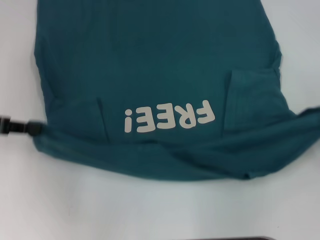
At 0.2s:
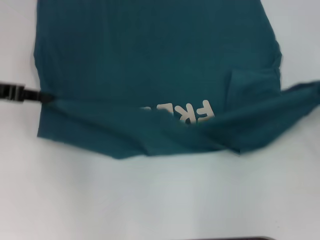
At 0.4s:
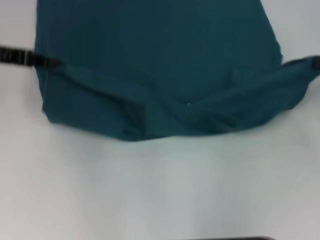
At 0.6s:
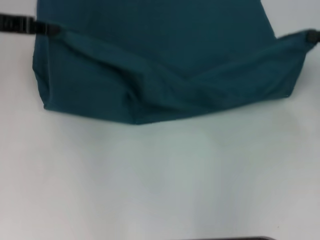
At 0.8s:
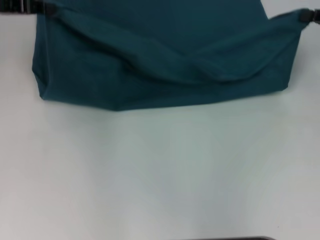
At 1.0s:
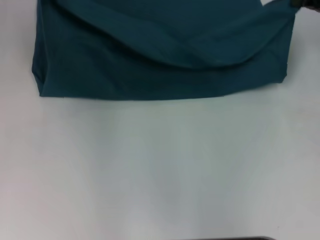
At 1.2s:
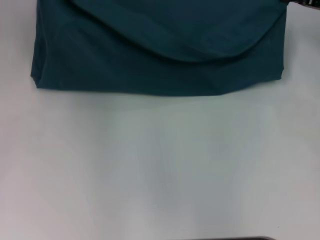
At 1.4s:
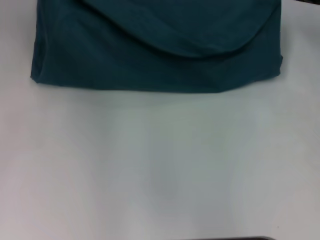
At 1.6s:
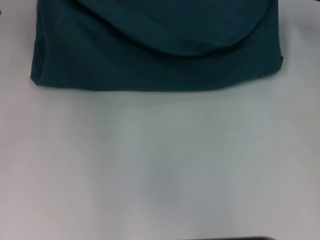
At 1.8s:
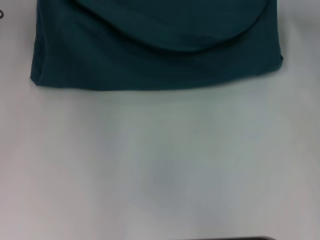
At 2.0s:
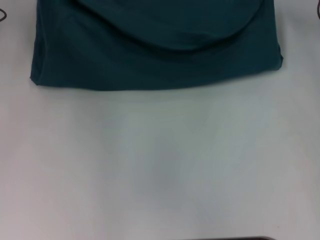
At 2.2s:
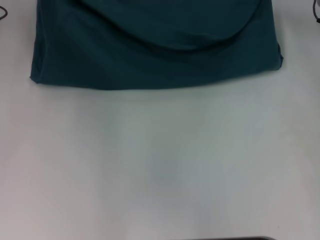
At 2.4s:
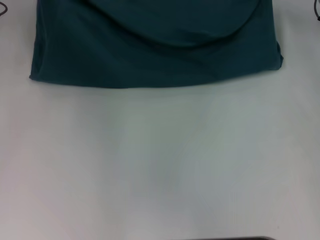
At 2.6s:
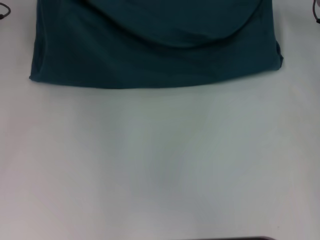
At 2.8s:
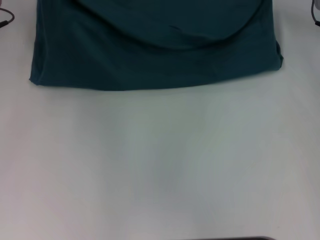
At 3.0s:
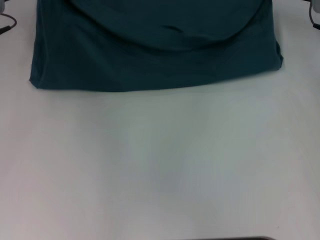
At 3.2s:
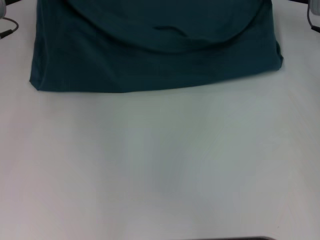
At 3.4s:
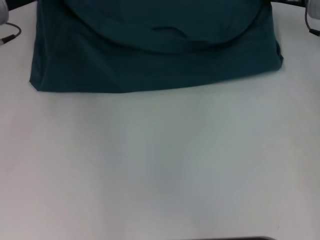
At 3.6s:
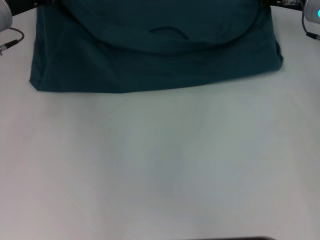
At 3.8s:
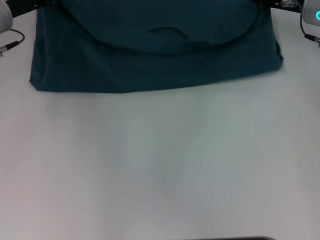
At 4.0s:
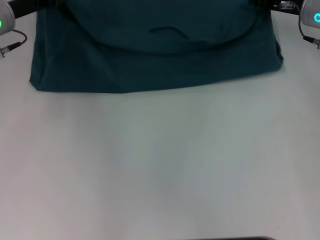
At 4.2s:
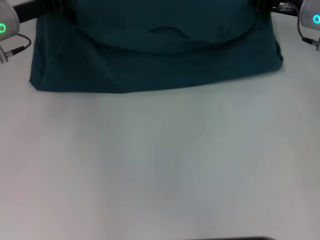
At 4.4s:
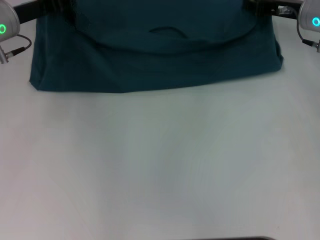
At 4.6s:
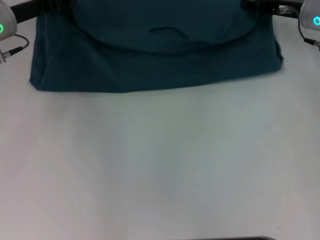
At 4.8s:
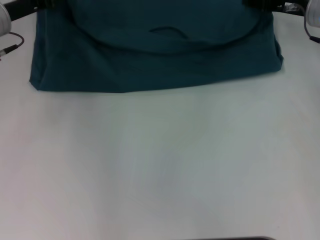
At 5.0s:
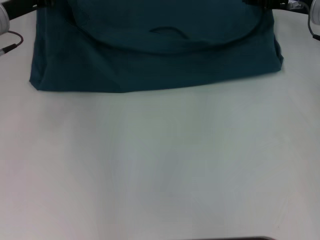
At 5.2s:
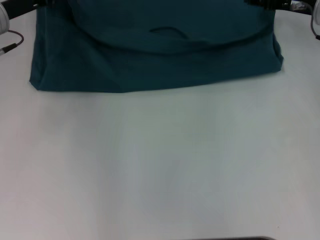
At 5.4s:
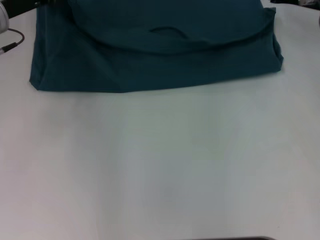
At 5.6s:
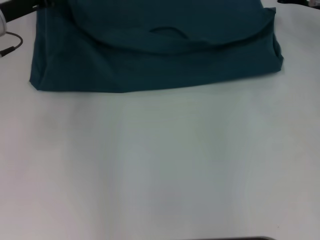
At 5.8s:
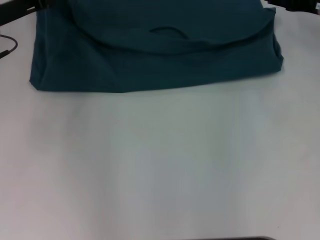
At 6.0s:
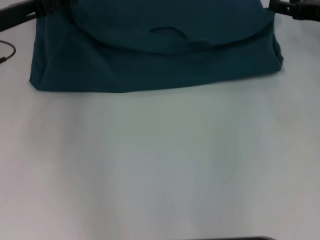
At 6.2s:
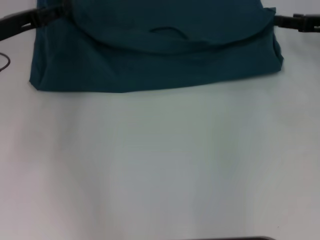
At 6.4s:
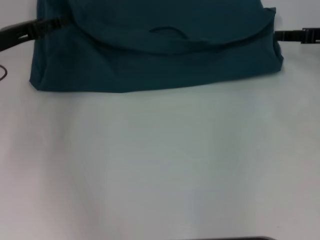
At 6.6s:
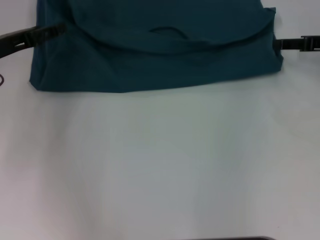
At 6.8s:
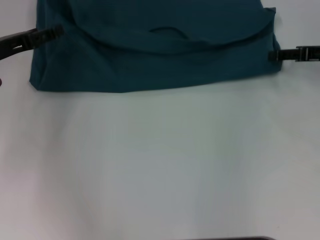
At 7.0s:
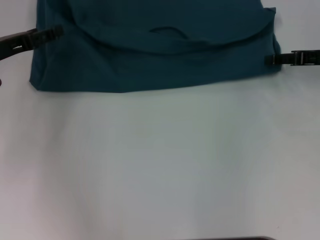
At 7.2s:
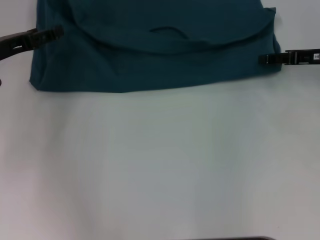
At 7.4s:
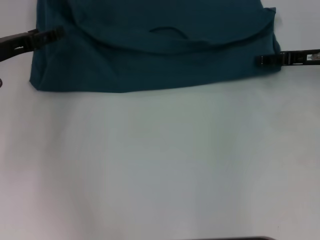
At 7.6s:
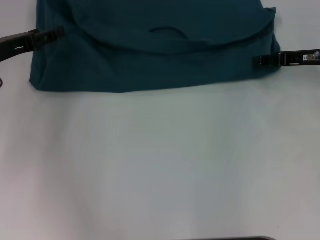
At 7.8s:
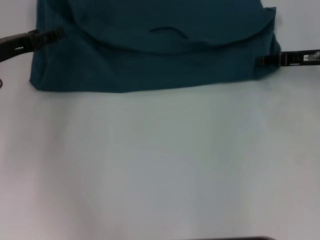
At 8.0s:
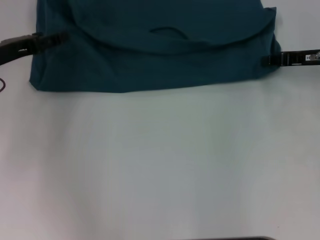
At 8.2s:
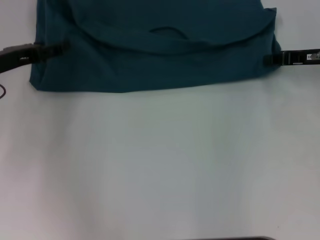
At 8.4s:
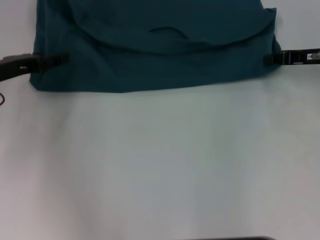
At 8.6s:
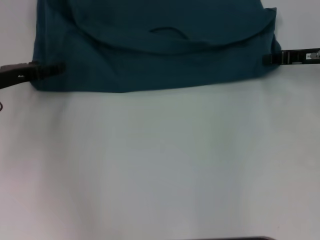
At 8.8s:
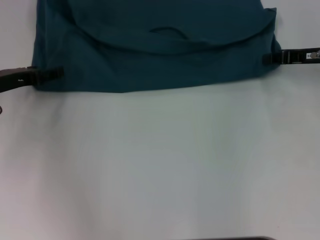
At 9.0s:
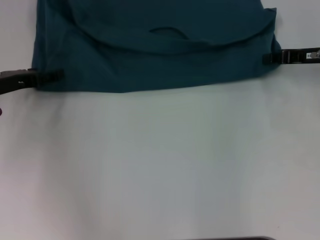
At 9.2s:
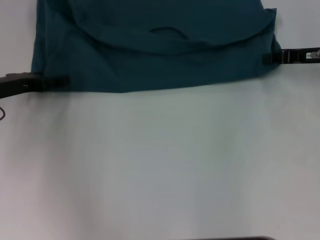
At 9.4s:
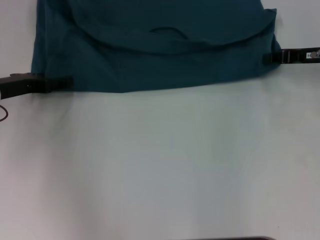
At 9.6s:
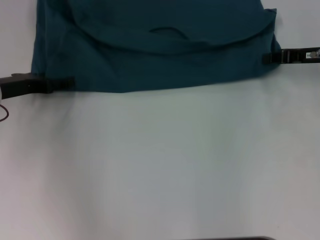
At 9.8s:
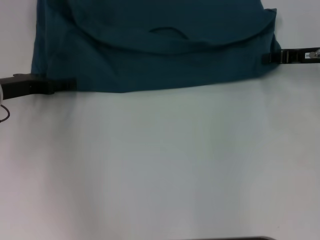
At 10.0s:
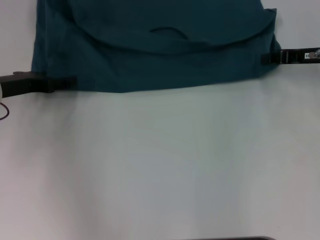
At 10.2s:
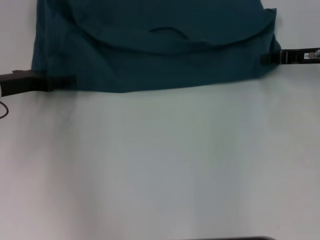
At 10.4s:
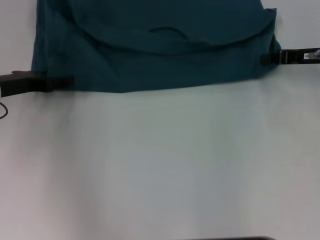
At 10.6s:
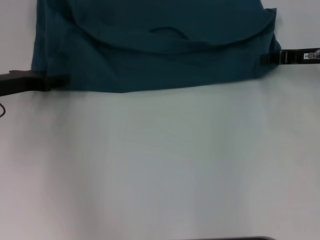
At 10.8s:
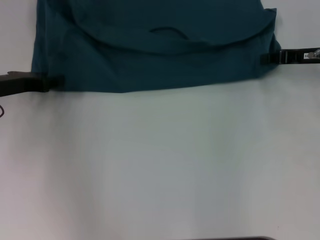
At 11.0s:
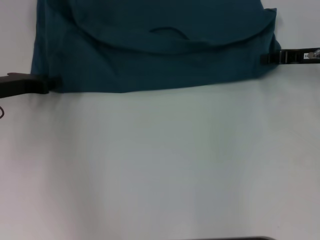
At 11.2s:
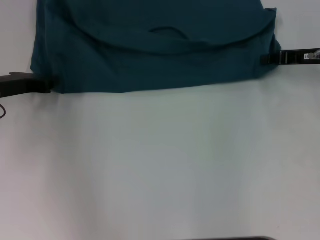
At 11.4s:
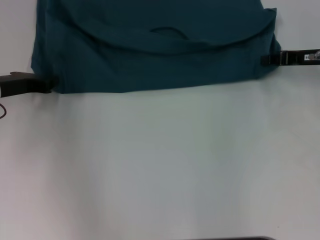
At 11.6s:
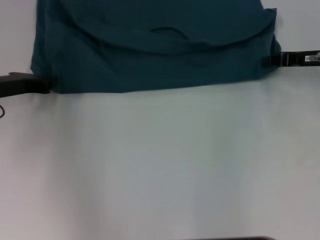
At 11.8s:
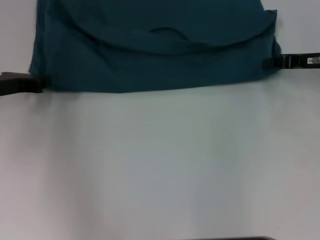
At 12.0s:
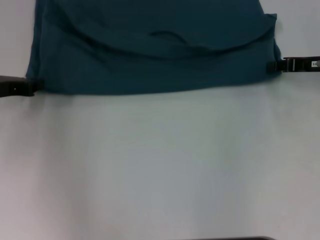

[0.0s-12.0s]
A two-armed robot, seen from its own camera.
Step, 0.0s to 5.4s: Fold the clothes to the left.
Step, 0.0s to 5.4s: Fold the clothes to the right.
0.0s to 1.6s: The right gripper goes some 20 cm forward and to the left. The left gripper moves forward, roughly 15 cm.
1.6s to 3.0s: There are only small adjustments of the grippers.
3.0s to 4.4s: The grippers stay close to where they were, moving slightly.
4.4s to 6.0s: The right gripper travels to the right by about 5 cm, and opens up, while the left gripper opens its fingers.
7.6s to 9.0s: The right gripper closes up.
10.4s to 12.0s: The left gripper closes.

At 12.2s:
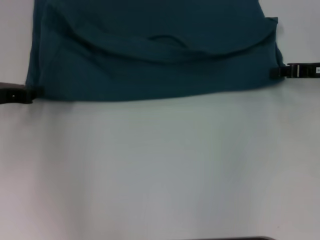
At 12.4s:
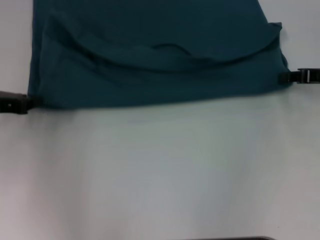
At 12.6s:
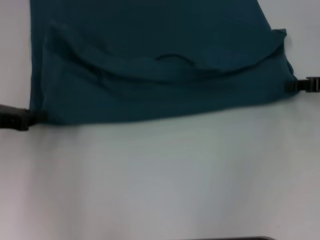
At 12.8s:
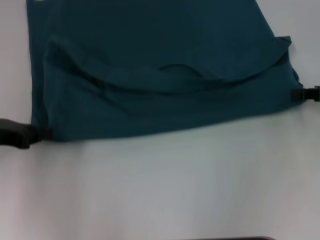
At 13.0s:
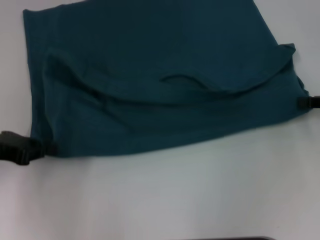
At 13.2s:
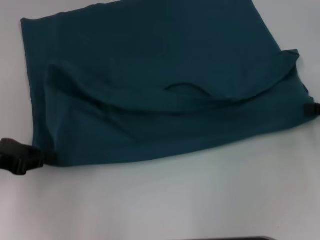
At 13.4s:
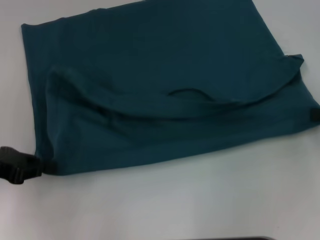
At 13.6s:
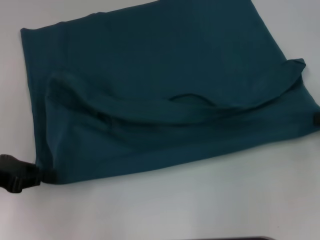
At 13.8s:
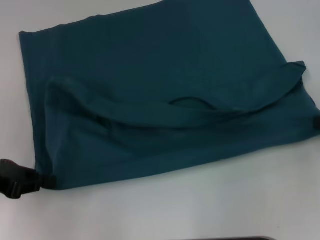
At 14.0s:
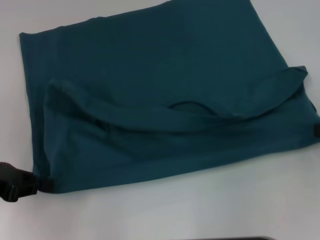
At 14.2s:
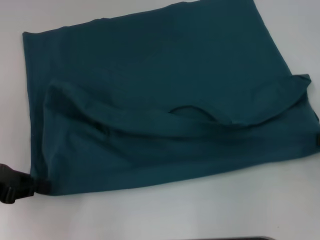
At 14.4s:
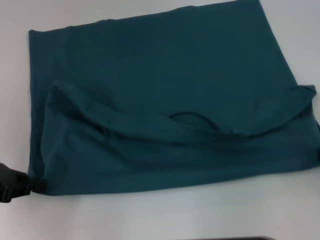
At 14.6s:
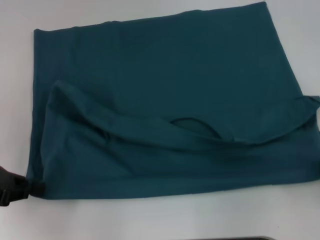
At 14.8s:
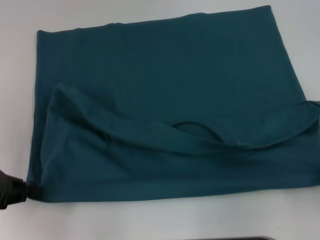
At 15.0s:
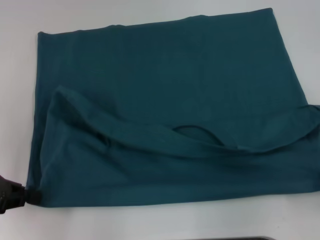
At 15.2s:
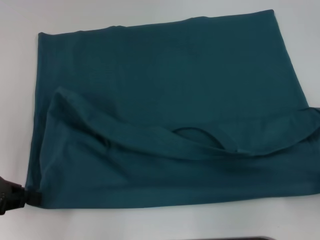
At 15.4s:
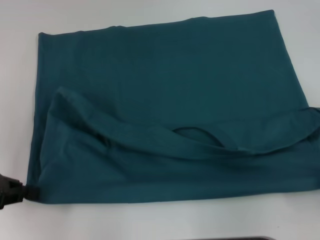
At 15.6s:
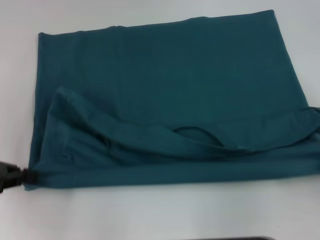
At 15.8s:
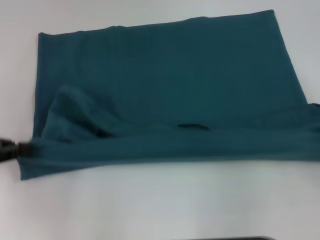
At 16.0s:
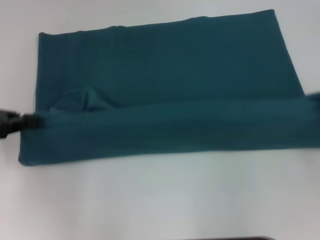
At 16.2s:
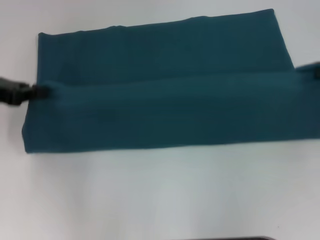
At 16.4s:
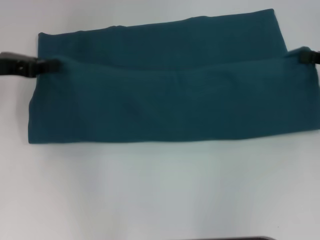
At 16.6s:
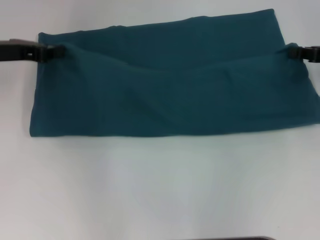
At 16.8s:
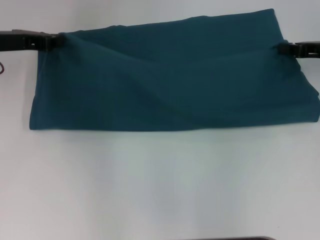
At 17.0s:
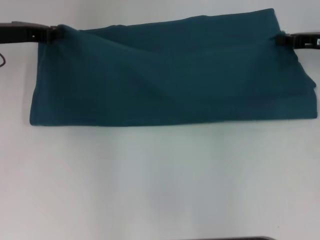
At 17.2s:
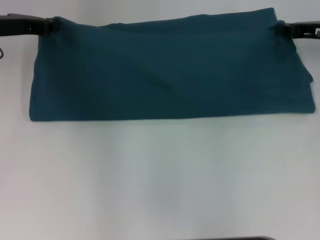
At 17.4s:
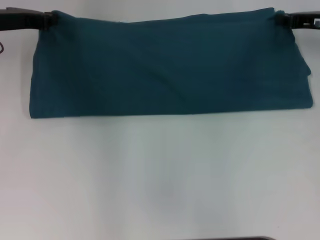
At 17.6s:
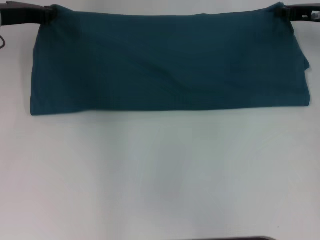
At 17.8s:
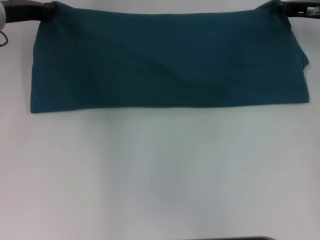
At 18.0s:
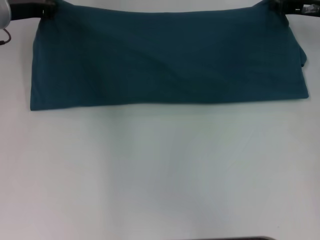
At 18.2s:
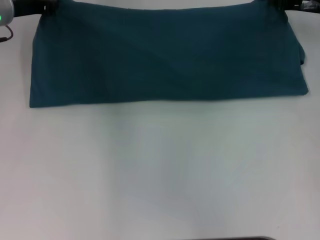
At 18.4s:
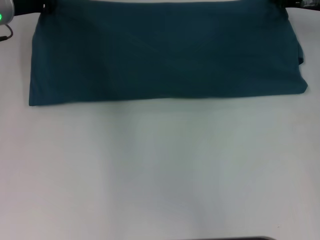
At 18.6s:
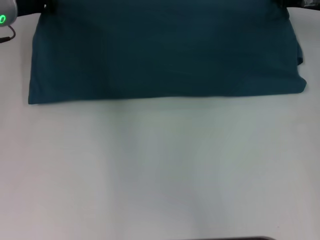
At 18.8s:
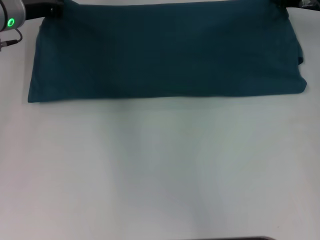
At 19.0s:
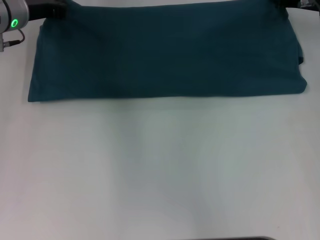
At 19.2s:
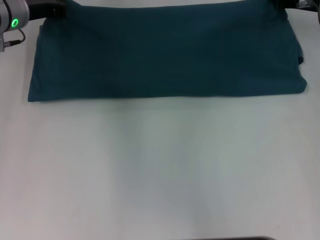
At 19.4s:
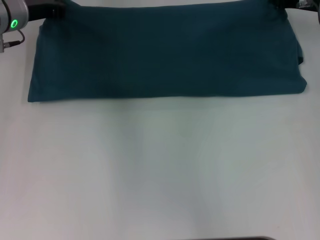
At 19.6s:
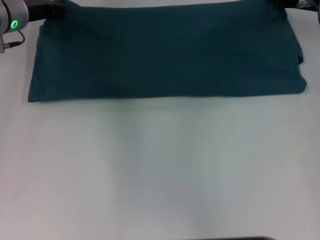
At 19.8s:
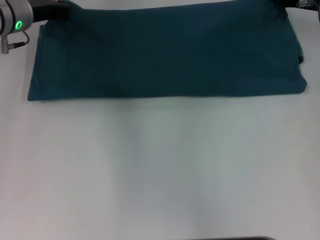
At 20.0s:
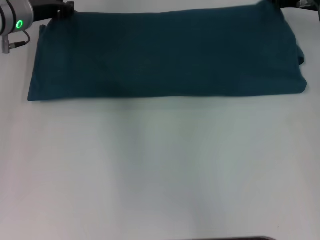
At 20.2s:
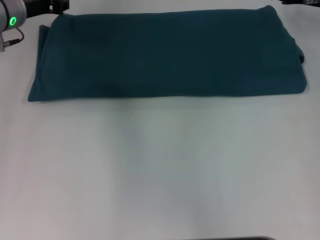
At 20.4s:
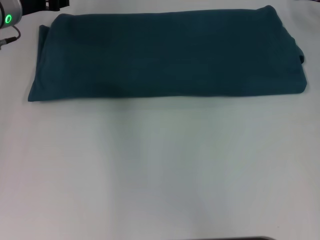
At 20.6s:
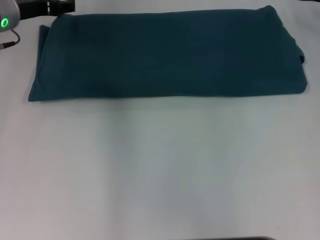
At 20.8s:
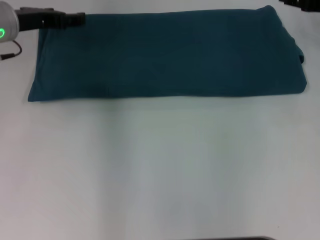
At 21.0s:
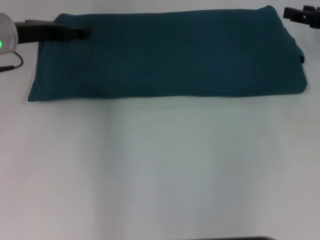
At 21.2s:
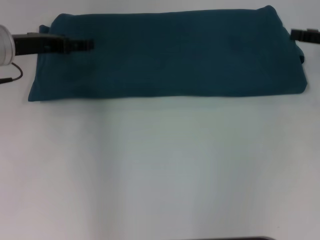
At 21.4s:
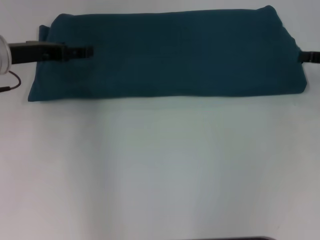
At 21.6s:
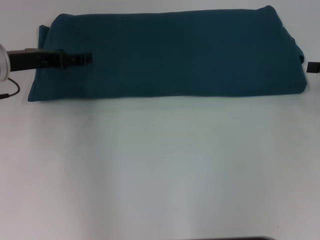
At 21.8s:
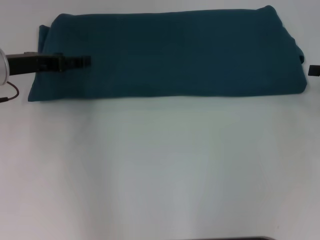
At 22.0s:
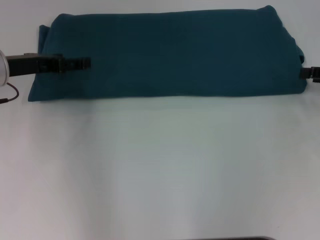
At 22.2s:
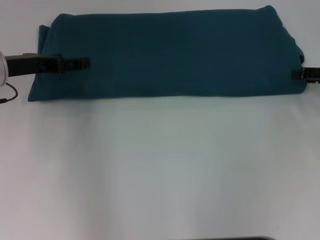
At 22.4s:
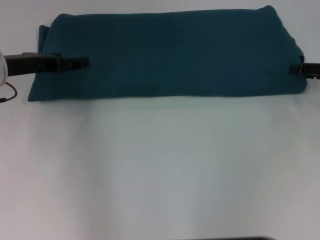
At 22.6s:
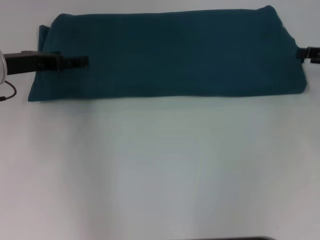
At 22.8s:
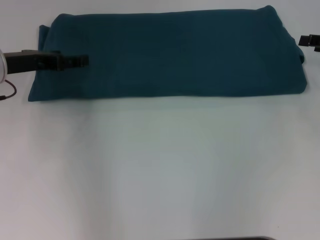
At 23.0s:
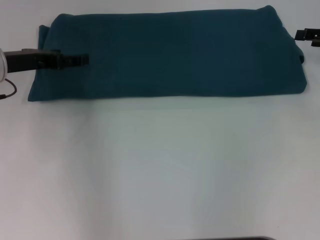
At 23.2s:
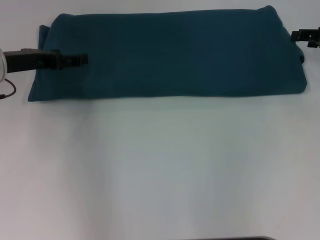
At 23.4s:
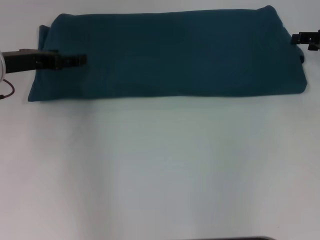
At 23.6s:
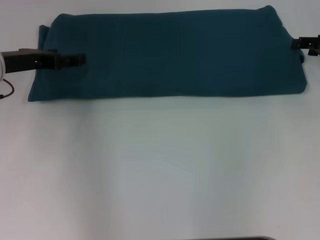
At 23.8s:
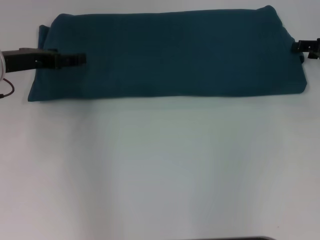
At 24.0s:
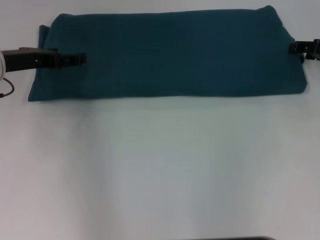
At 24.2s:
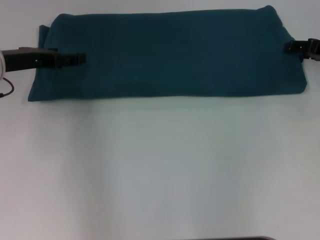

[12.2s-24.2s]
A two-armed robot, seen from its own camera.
Step, 12.2s to 14.8s: Pull the clothes with your left hand.
Step, 12.2s to 14.8s: Pull the clothes with your right hand.
Step, 15.0s to 20.2s: Fold the clothes to the left.
Step, 15.0s to 20.2s: Fold the clothes to the right.
12.2s to 13.8s: The right gripper travels backward and to the right by some 10 cm, while the left gripper travels backward by about 10 cm.
13.8s to 15.2s: The right gripper travels backward by about 10 cm.
15.2s to 16.6s: Both grippers travel together forward, about 15 cm.
16.6s to 18.2s: The right gripper goes approximately 10 cm forward and to the left; the left gripper shifts some 5 cm forward.
18.2s to 19.8s: The grippers make only small movements.
19.8s to 21.2s: The right gripper moves backward and to the right, roughly 10 cm, and opens. Meanwhile the left gripper heads backward, covering about 5 cm, and opens its fingers.
21.2s to 22.6s: The grippers move only a little.
